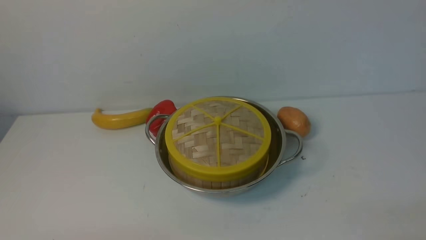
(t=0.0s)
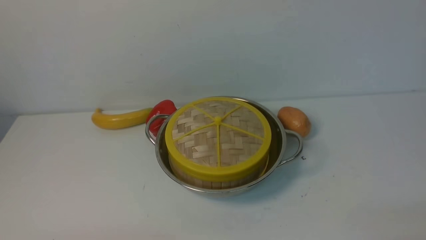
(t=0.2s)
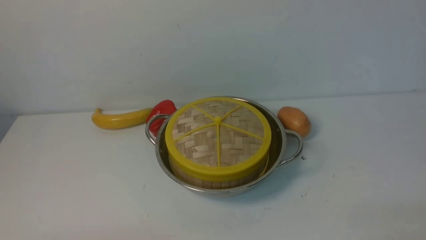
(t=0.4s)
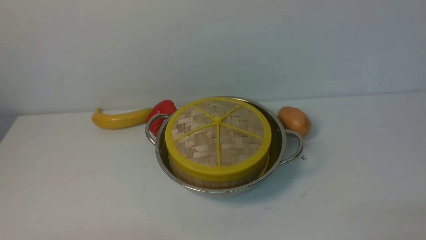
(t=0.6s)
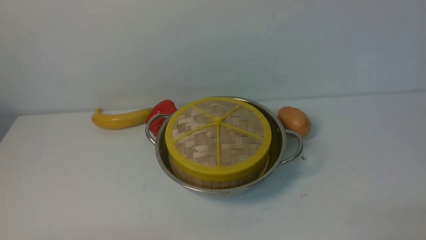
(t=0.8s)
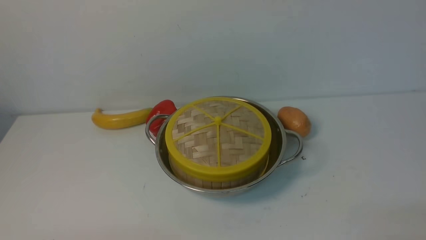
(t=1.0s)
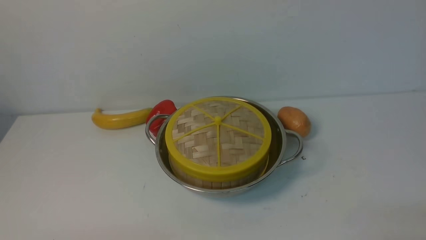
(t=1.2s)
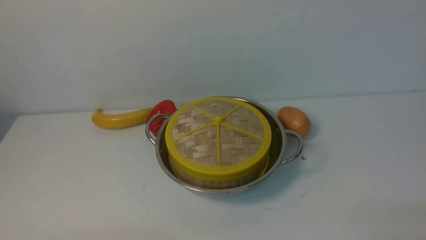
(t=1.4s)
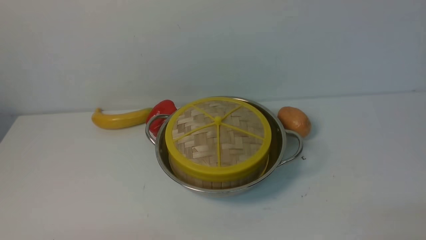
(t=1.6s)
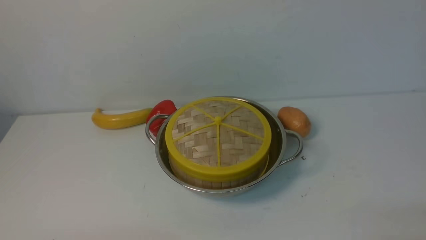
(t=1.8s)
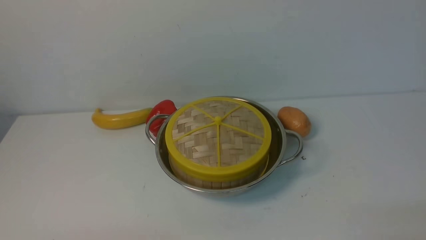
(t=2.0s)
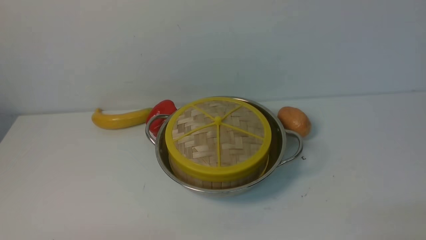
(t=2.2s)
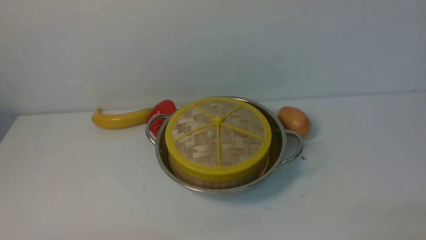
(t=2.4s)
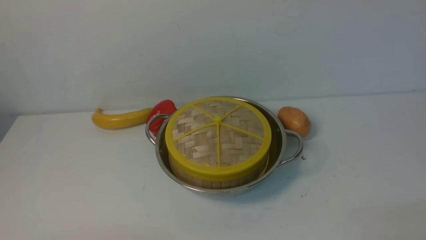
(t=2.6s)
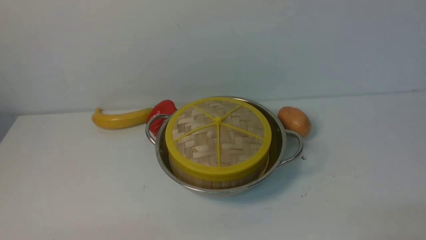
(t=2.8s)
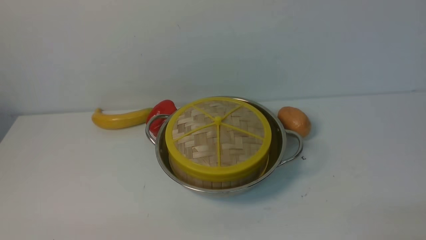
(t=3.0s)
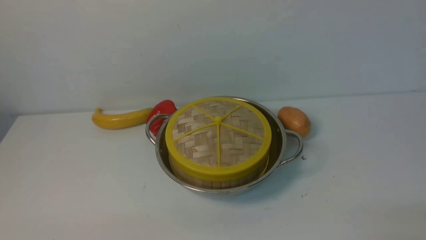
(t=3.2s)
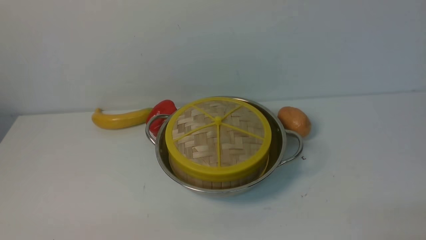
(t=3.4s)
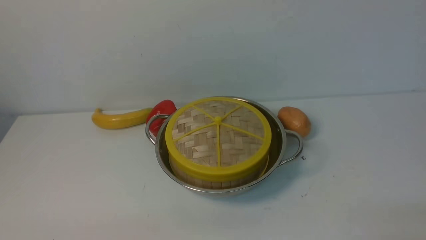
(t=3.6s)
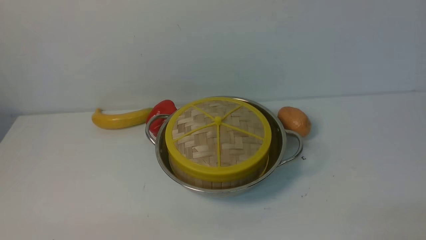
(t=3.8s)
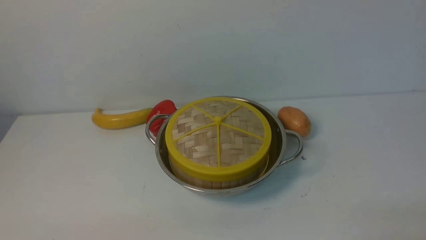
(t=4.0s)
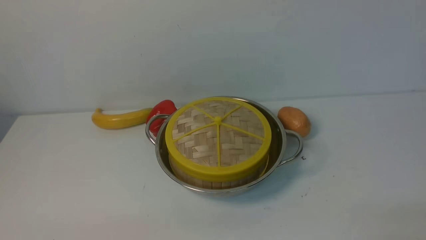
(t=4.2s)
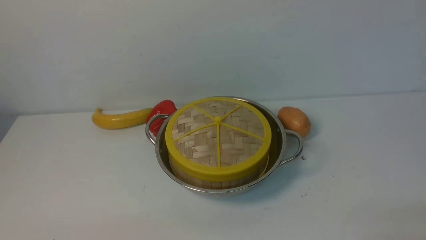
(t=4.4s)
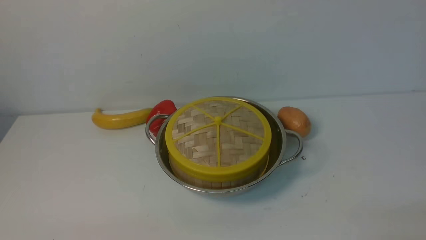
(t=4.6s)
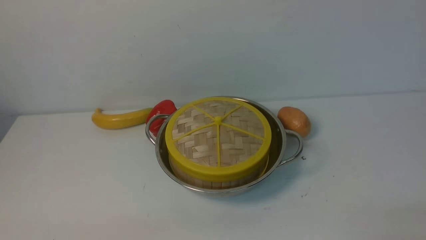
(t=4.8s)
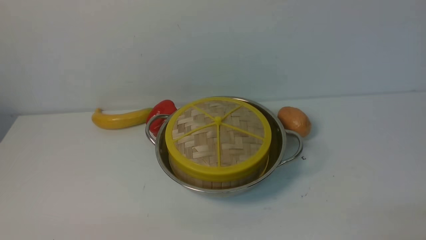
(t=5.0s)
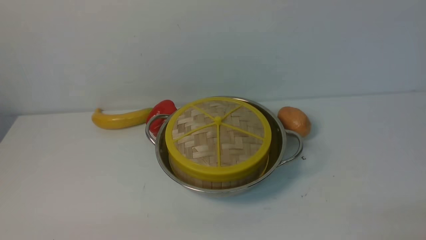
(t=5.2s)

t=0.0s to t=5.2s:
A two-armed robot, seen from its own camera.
Task of the whole recording: place the steamer in the pot on the white table, and put the lid on the steamer.
t=0.0s to t=1.8s: Both grippers stay put.
t=3.4s to t=5.2s: Both grippers stay put.

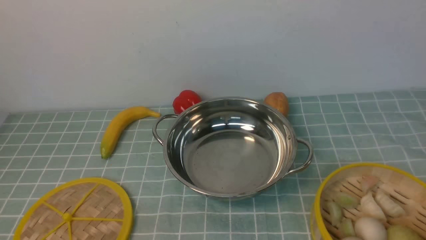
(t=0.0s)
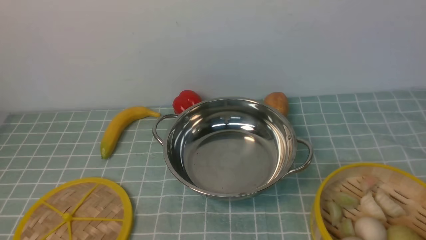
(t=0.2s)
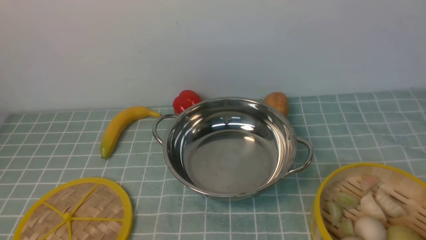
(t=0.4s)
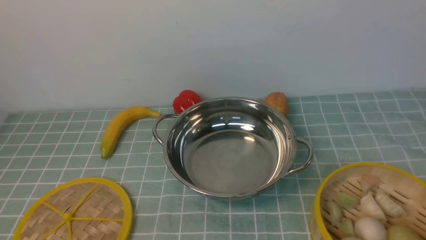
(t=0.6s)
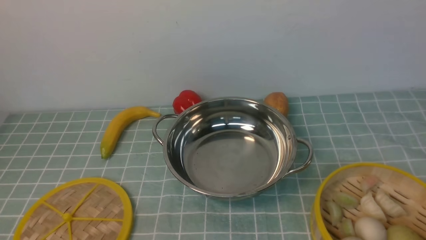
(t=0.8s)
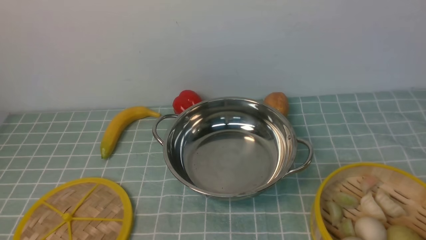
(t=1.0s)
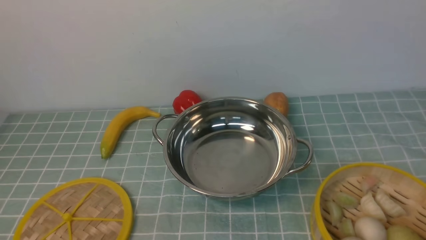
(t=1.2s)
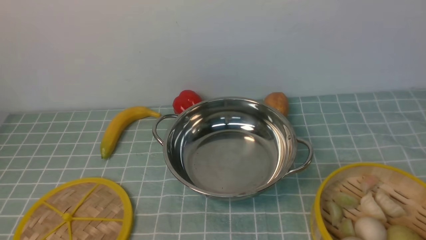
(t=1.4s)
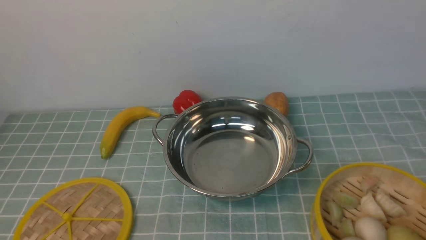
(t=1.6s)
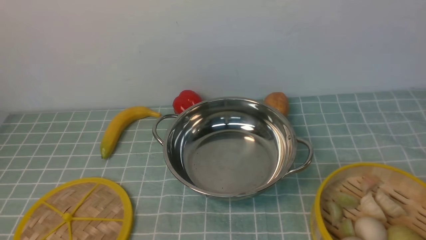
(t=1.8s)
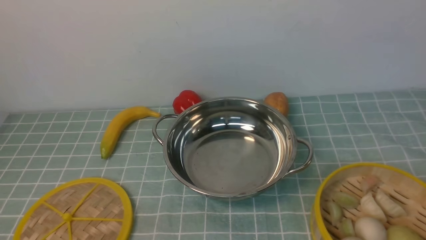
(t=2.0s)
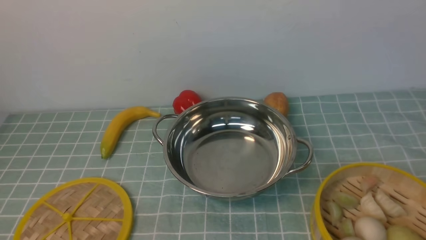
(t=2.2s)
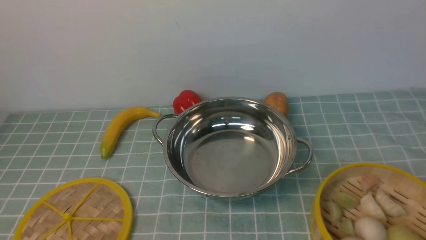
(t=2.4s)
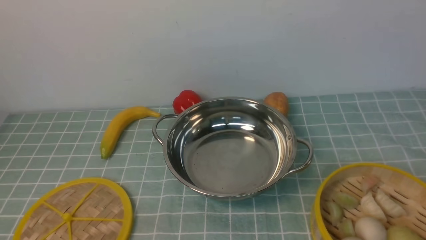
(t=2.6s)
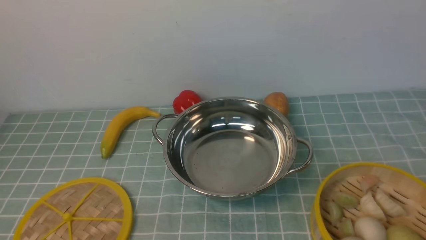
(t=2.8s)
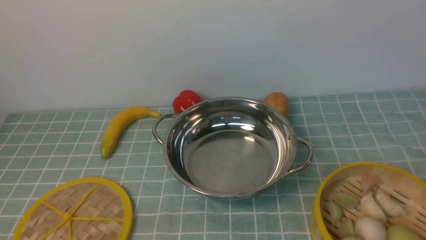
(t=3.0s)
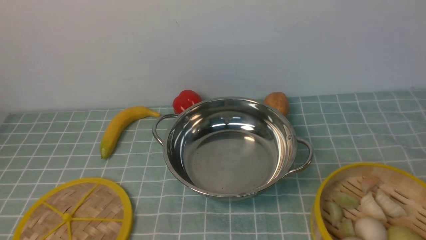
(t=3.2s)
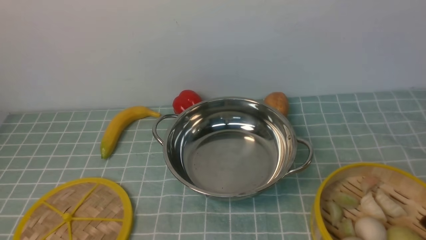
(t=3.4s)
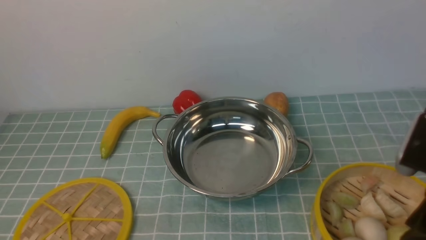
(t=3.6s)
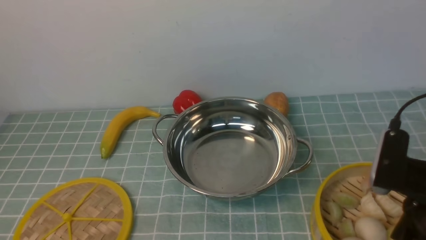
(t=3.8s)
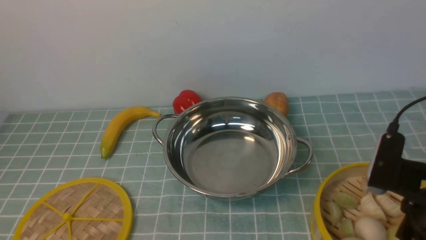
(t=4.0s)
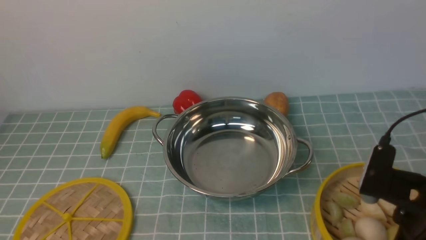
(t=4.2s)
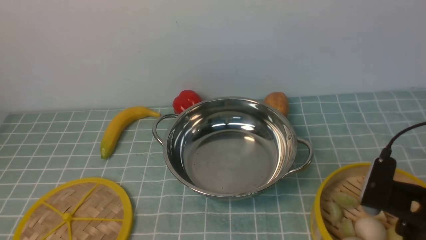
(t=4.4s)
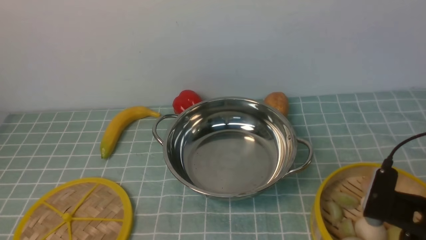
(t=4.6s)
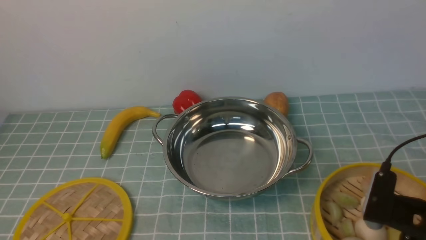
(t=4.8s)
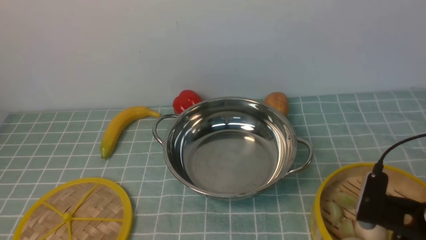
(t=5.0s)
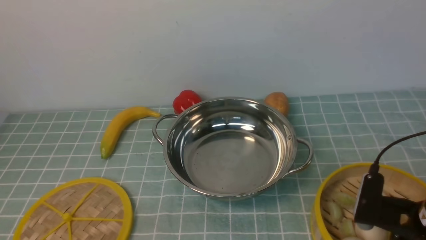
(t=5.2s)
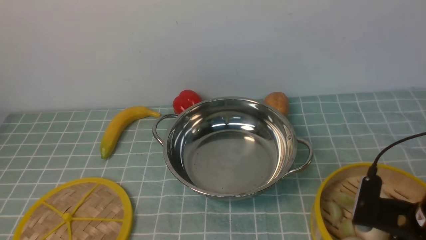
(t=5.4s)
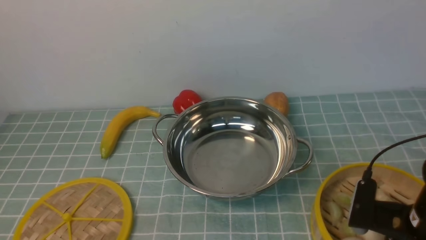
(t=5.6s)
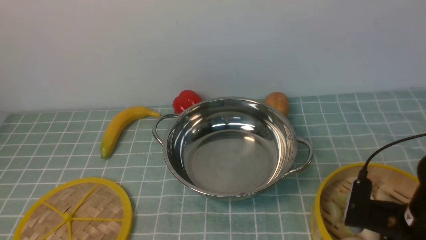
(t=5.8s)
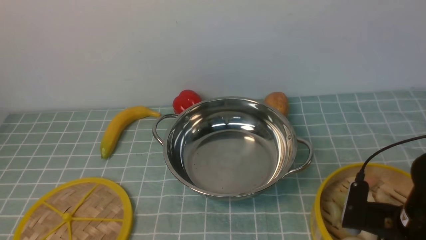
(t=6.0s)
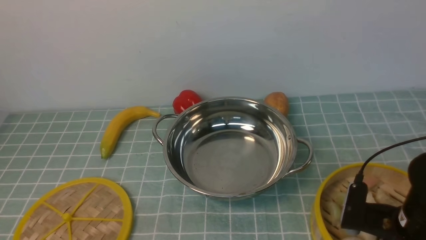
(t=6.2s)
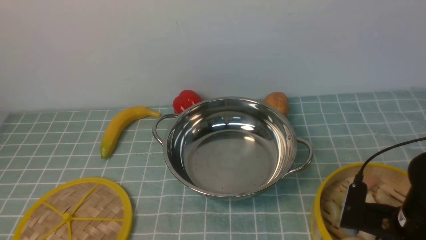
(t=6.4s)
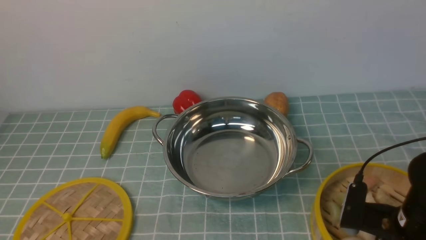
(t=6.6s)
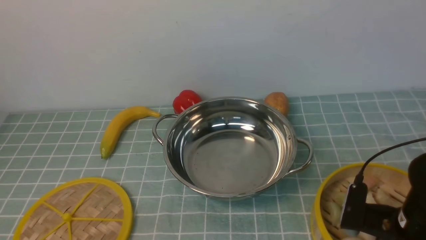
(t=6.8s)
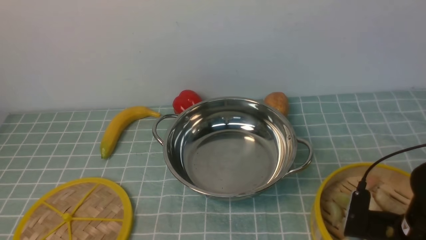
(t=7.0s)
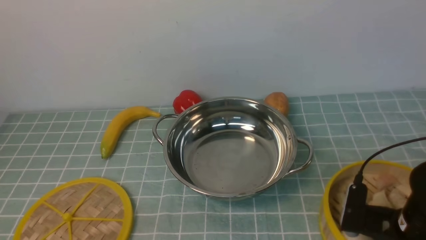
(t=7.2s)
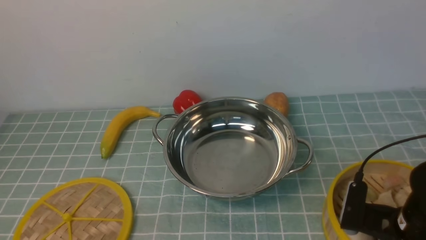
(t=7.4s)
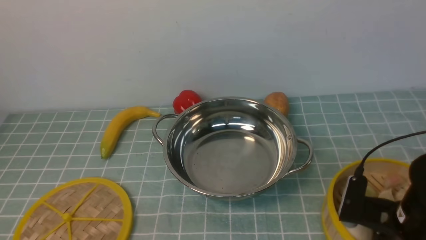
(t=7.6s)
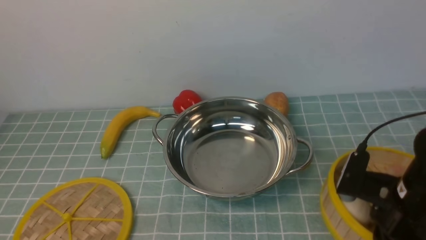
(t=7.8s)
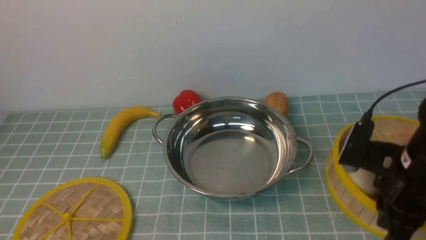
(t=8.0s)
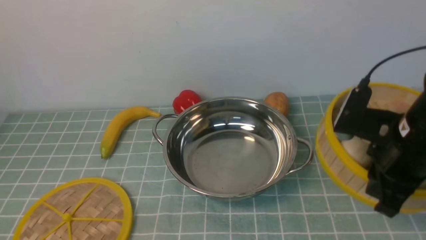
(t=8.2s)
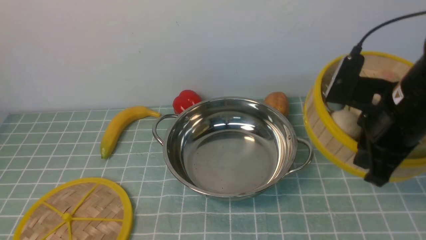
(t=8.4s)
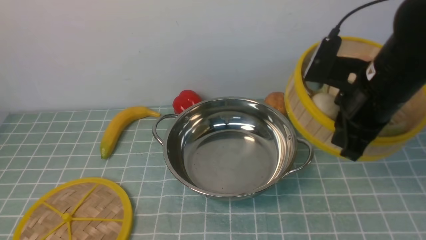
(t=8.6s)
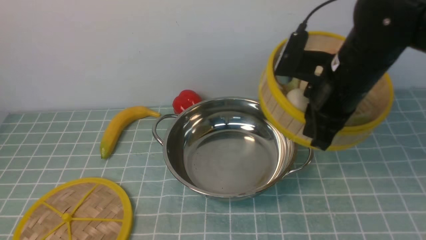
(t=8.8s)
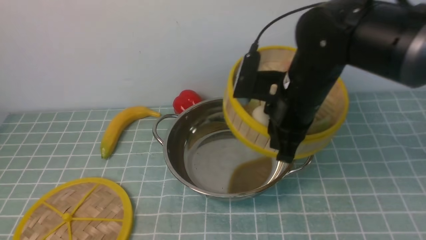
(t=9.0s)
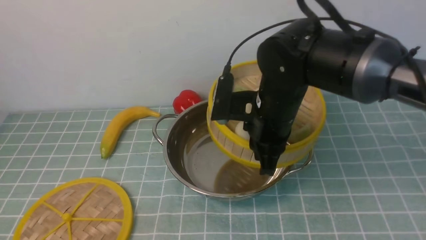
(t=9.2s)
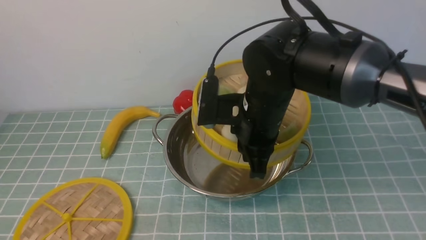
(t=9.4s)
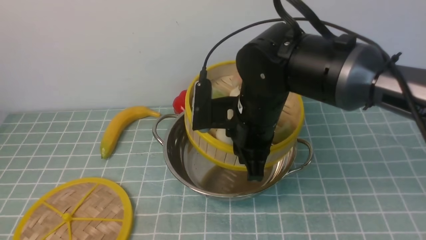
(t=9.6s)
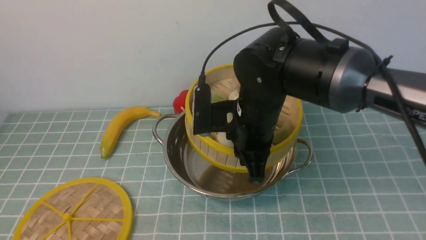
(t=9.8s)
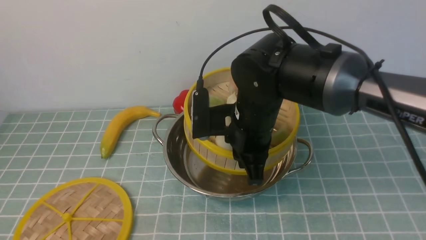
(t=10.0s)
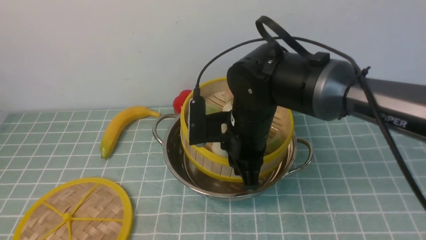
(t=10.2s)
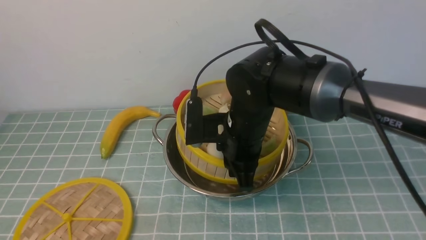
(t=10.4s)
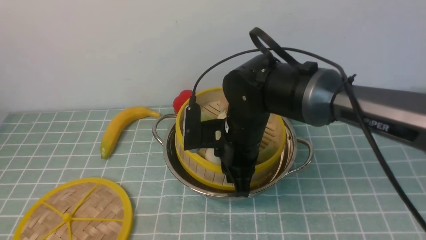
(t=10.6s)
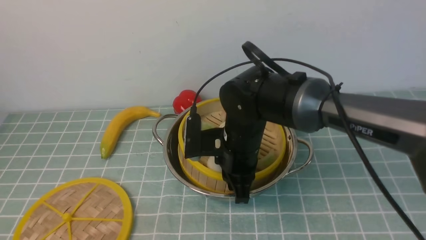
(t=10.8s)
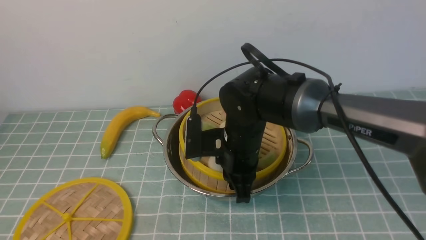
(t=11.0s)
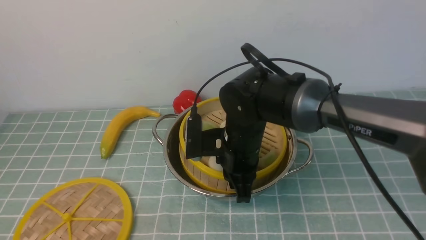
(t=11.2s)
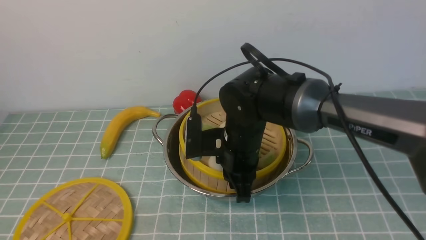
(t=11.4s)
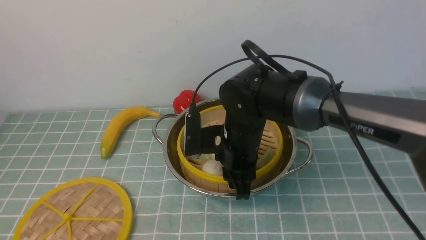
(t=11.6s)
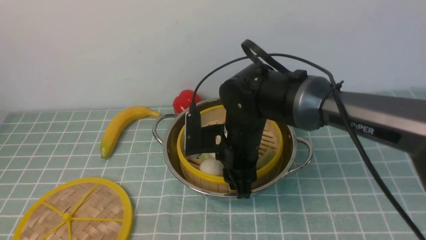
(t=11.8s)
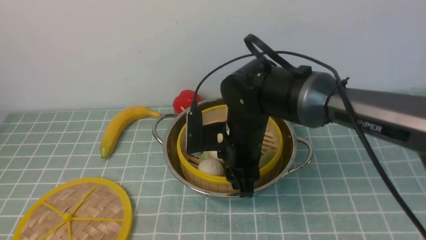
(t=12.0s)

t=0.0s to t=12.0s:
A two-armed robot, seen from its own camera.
Task of the whole recording: place the steamer in the pot on the blue tablecloth, and put the lid on the steamer.
Step, t=0.0s to t=8.0s: use the right arm to lift the steamer closest to it.
t=3.0s to t=4.4s: The right gripper goes roughly 15 cm forward and downward.
t=4.4s to t=6.0s: The right gripper is displaced downward by approximately 5 cm.
t=6.0s to t=7.6s: The right gripper closes.
t=7.6s to t=9.0s: The right gripper is displaced forward, upward and to the left by approximately 20 cm.
t=9.0s to t=10.4s: The right gripper moves to the left and downward, approximately 10 cm.
t=10.4s to t=12.0s: The right gripper opens.
